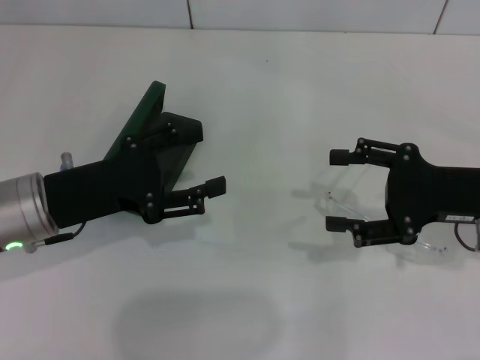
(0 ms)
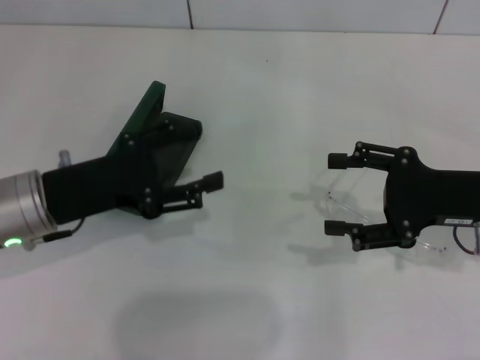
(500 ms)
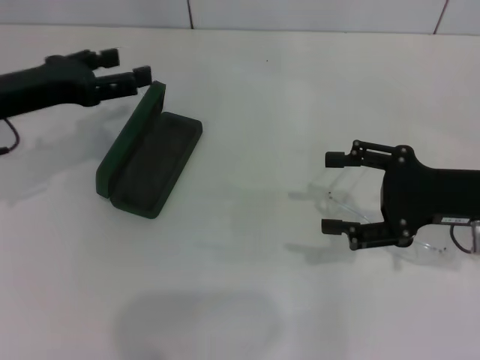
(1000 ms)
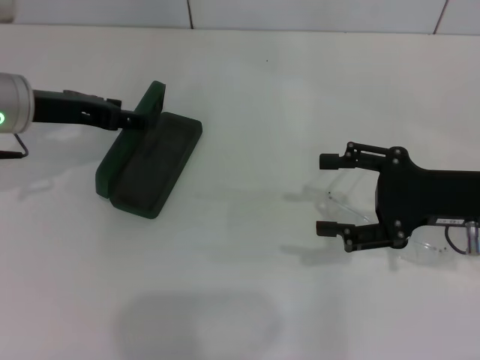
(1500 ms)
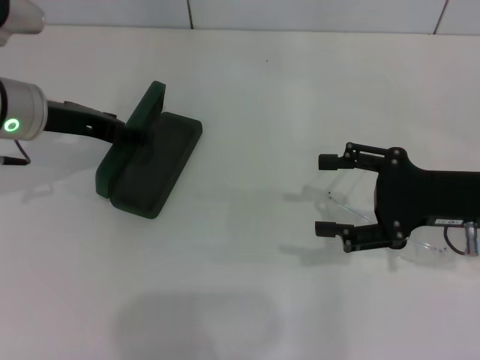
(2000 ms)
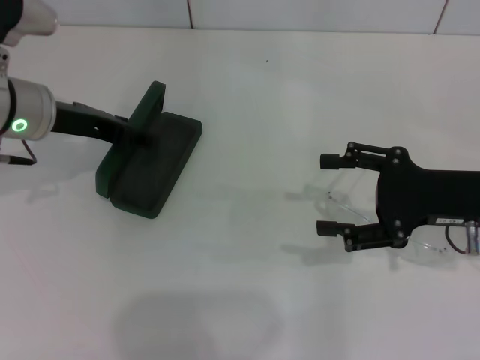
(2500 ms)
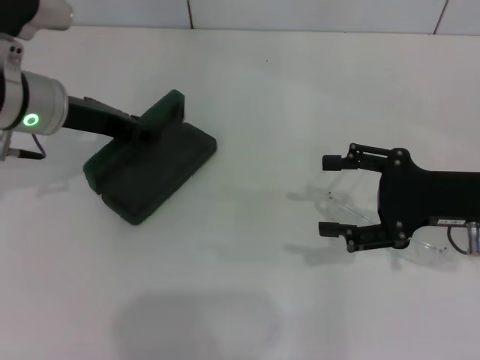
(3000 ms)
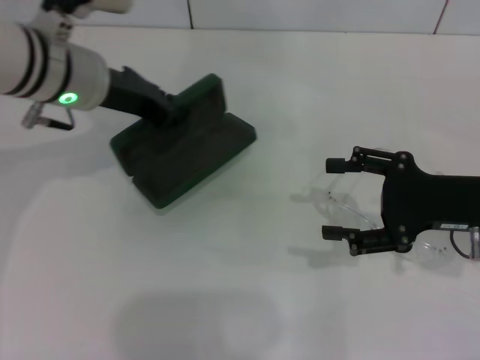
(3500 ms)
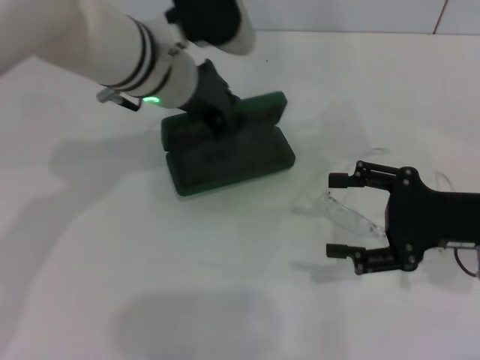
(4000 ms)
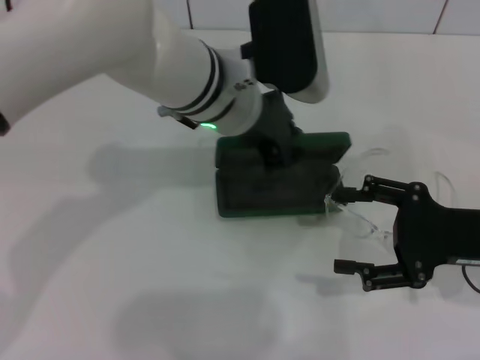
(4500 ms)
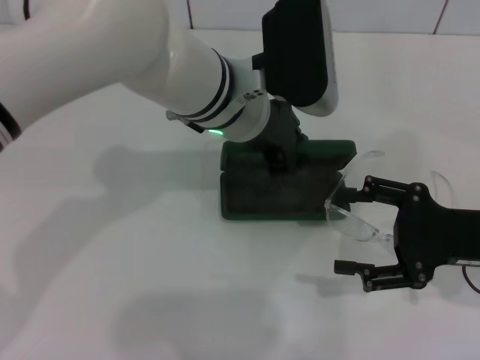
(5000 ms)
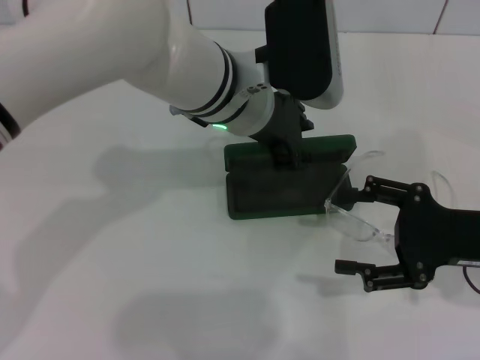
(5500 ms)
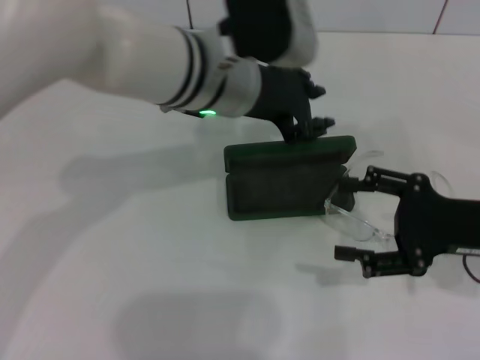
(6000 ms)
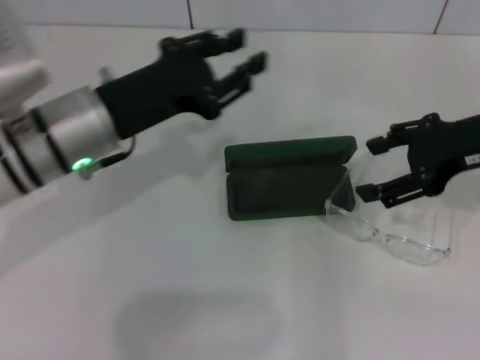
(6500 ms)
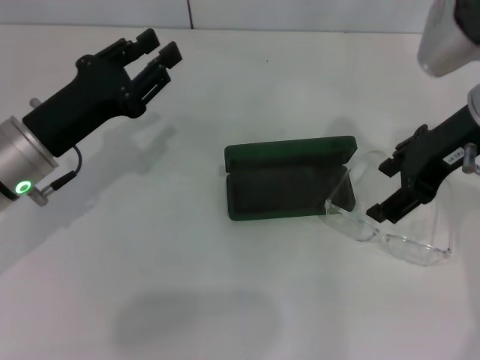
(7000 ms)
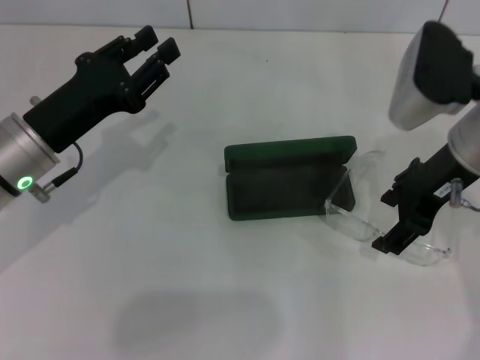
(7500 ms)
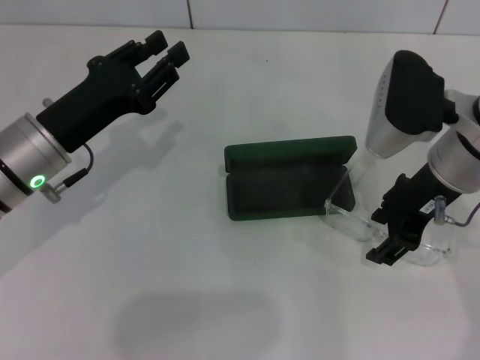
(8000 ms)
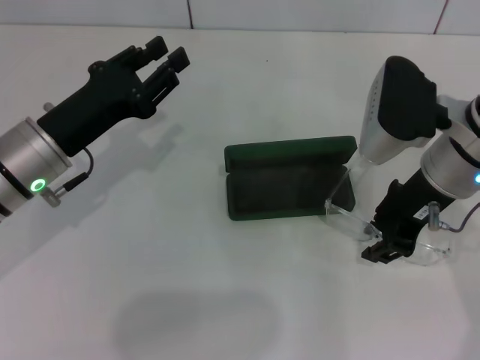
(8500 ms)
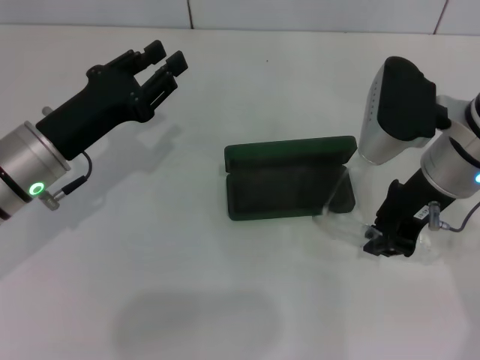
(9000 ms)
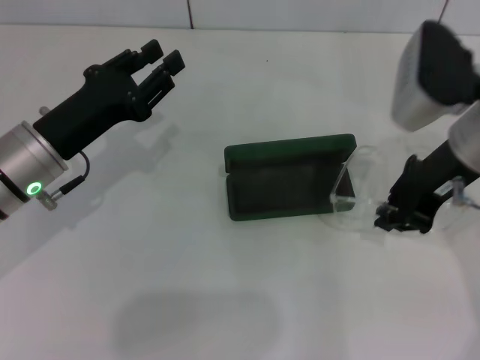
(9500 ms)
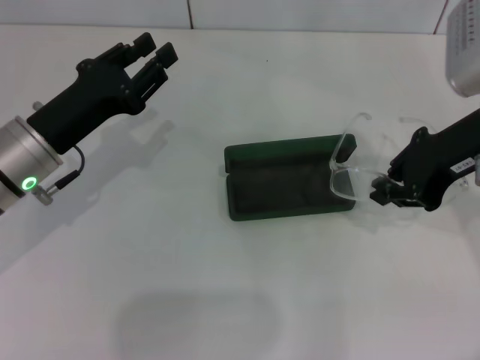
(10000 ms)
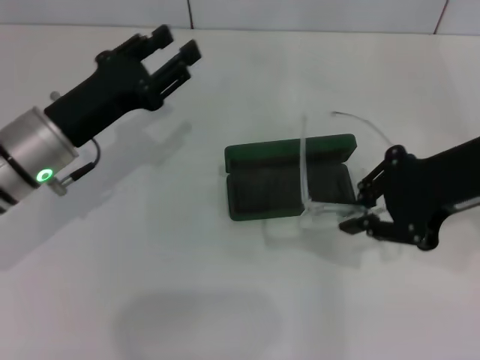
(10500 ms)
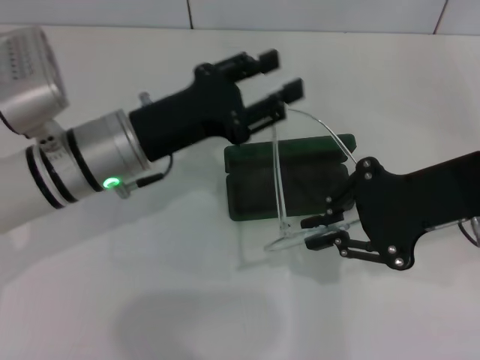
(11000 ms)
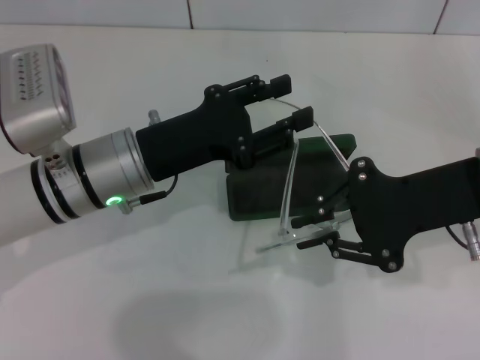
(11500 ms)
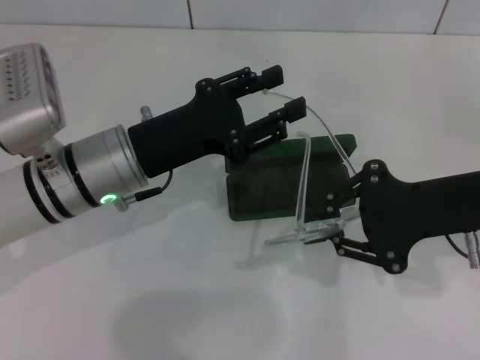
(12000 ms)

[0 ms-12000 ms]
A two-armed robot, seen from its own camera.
Step, 0 ms to 3000 ms: Grab the glasses case with your left hand.
Step, 3500 ms to 5500 ms: Place the glasses case in the center of the table with your left hand.
Step, 6000 ms to 9000 ms: Grab the eyeglass frame with your right hand.
0 ms to 2000 ms: The left gripper heads forward, covering approximately 10 cm.
2000 ms to 4000 ms: The left gripper heads to the right, covering about 15 cm, and closes its fingers.
4000 ms to 6000 ms: The left gripper moves about 5 cm.
6000 ms to 8000 ms: The right gripper goes about 15 cm to the left, forward and upward. Meanwhile the left gripper moves to the left and downward, some 20 cm.
8000 ms to 10000 ms: The right gripper shifts by approximately 5 cm, and closes up.
10000 ms to 12000 ms: The right gripper travels backward by some 5 cm; the left gripper heads to the right, covering about 5 cm.

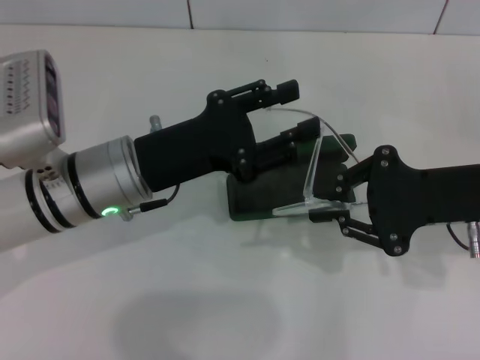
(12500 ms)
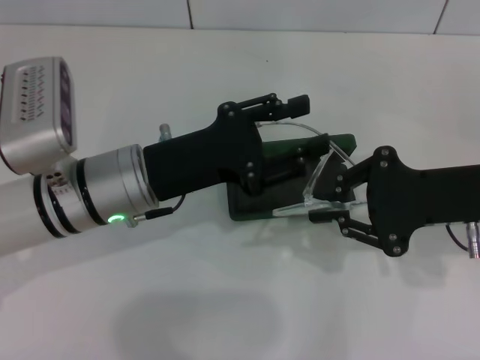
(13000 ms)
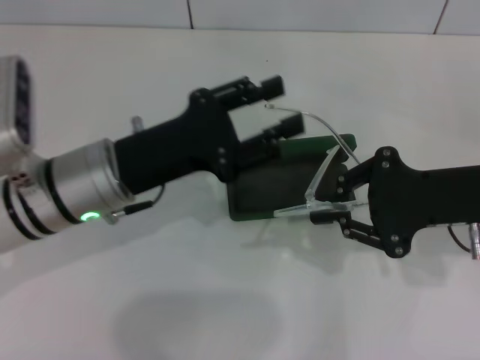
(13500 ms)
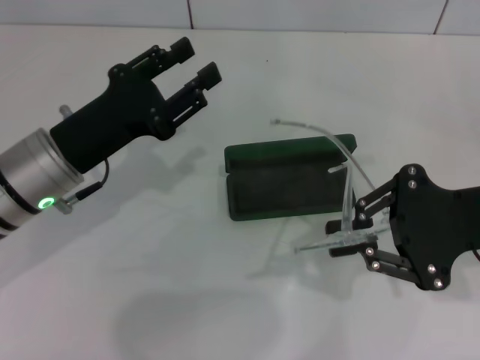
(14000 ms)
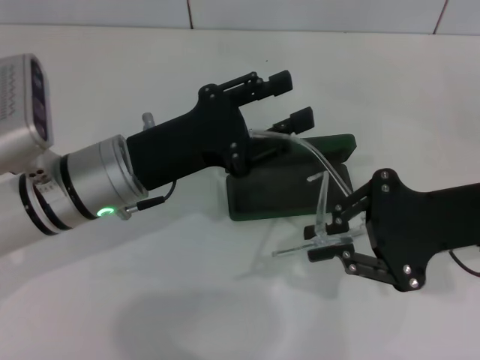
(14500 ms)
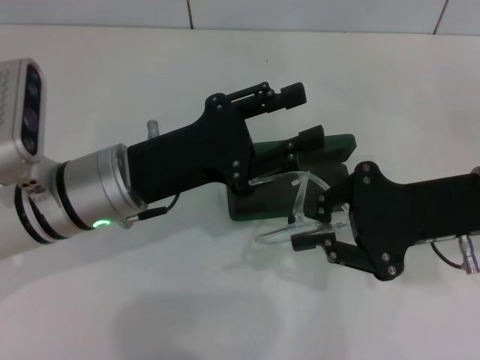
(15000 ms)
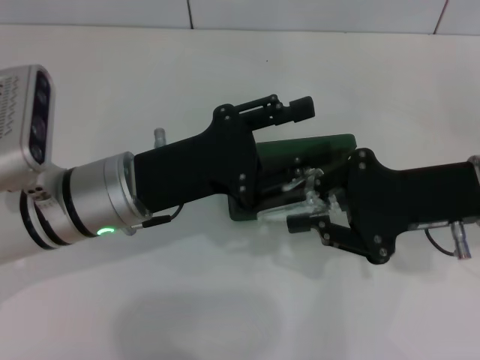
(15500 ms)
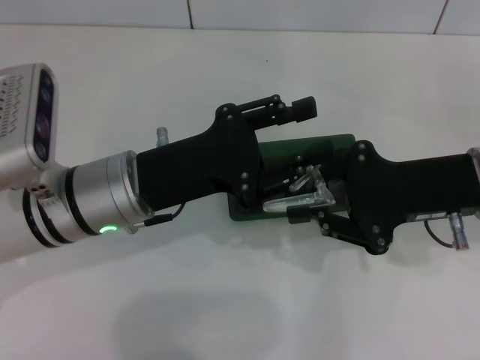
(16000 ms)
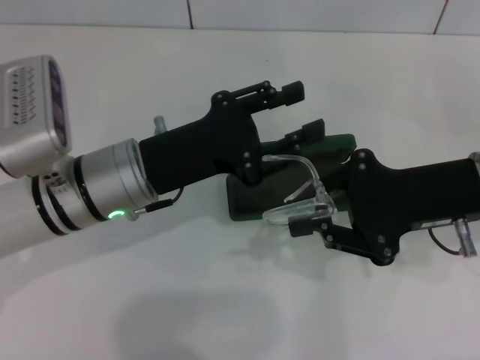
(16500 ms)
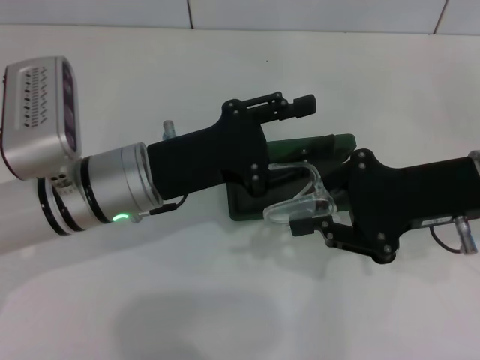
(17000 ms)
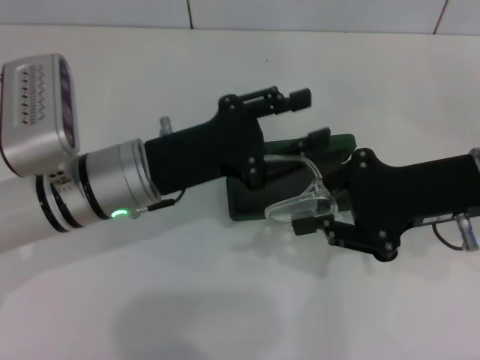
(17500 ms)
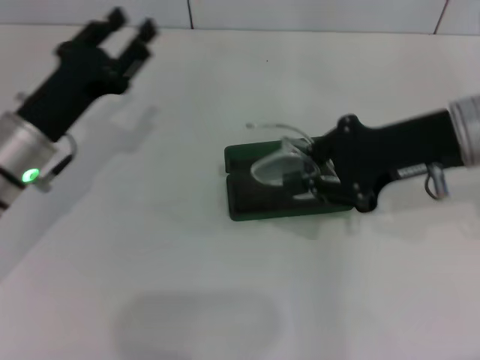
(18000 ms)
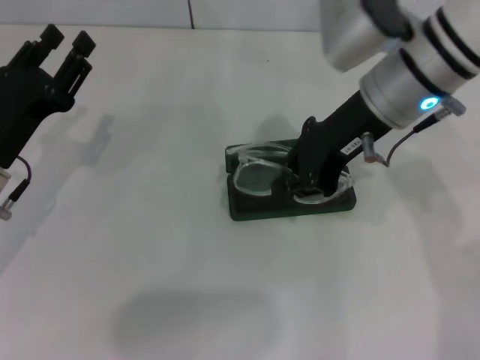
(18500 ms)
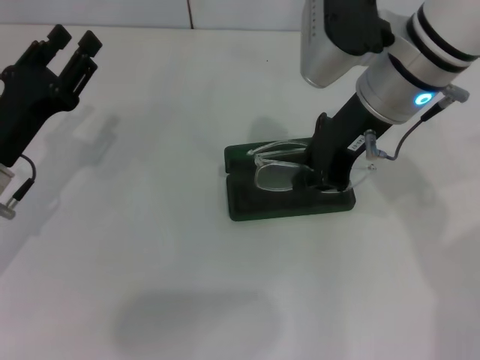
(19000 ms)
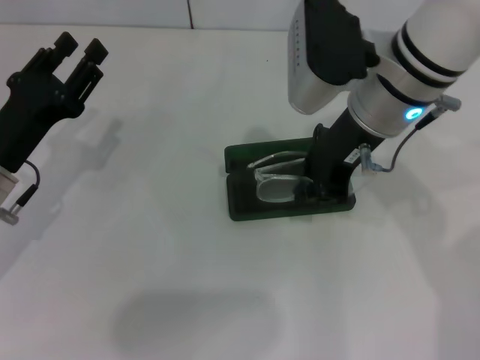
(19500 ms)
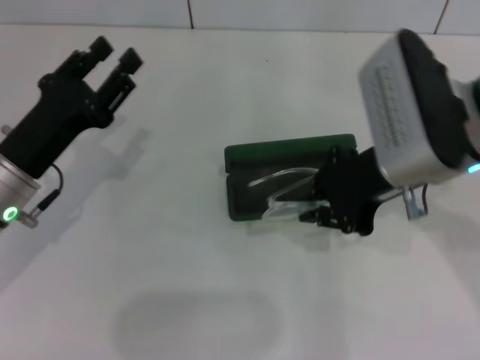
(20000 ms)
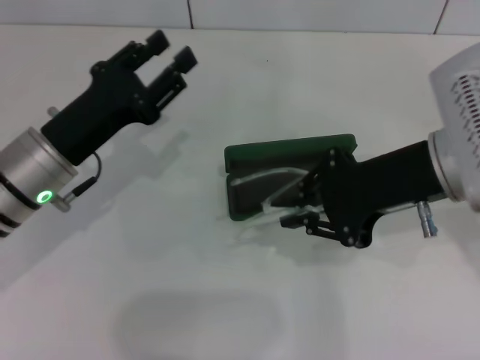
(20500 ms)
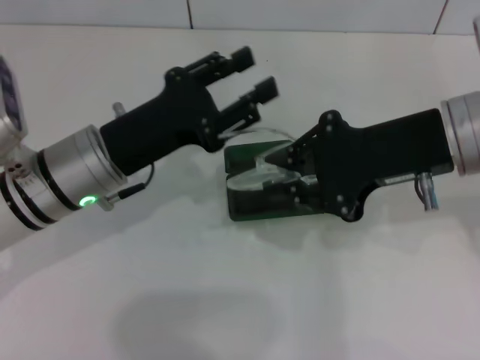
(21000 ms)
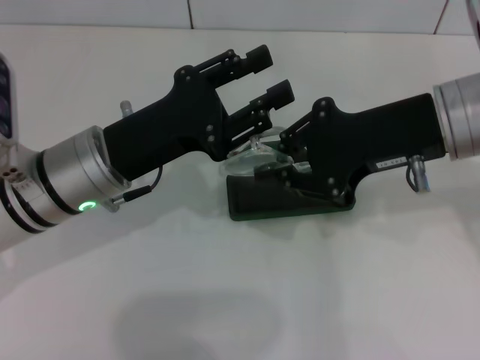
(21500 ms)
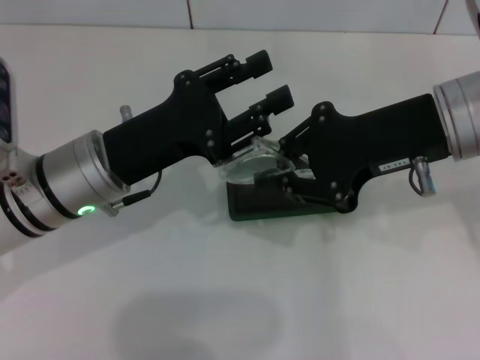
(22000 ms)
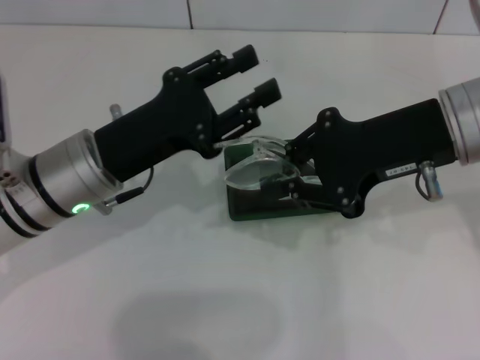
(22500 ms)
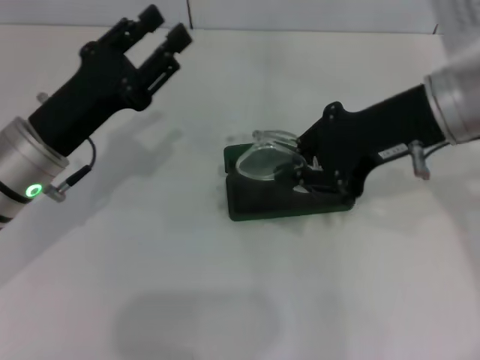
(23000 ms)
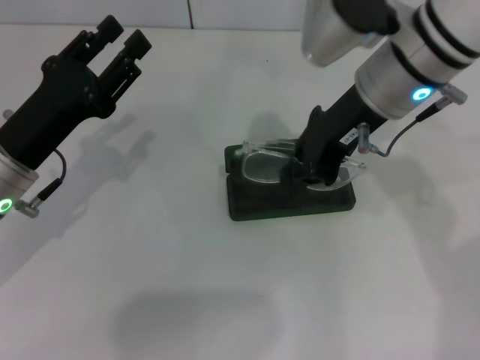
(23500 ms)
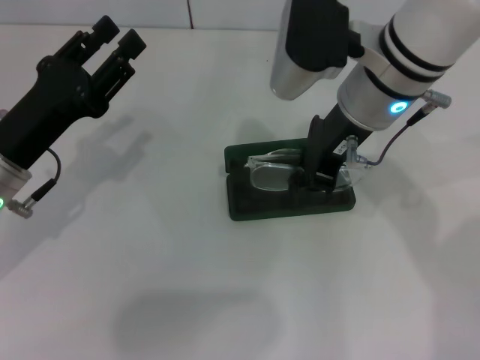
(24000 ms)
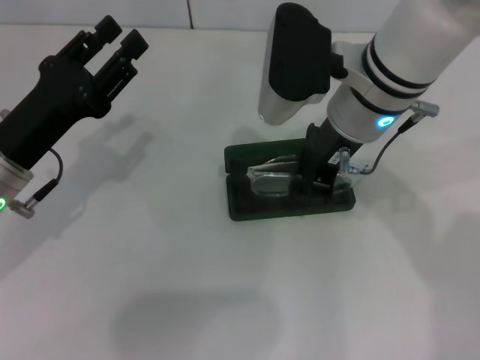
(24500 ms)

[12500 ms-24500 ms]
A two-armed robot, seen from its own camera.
Step, 12500 ms to 22000 ms: Fold the frame with your left hand.
12500 ms to 16500 ms: The grippers make only small movements.
16500 ms to 18500 ms: The left gripper is displaced to the left by roughly 10 cm; the right gripper goes about 15 cm to the left, forward and upward.
18500 ms to 20500 ms: The right gripper heads backward and to the right, covering approximately 10 cm; the left gripper is displaced to the right by about 5 cm.
22500 ms to 24500 ms: The left gripper moves to the left, some 5 cm. Meanwhile the right gripper heads to the left and forward, covering about 10 cm.

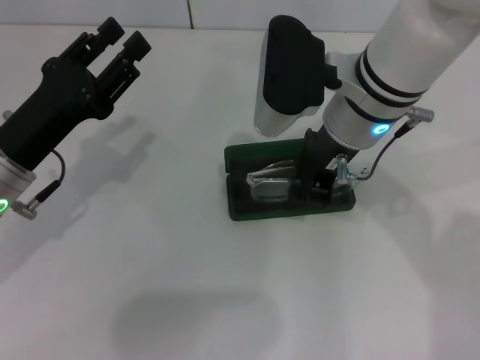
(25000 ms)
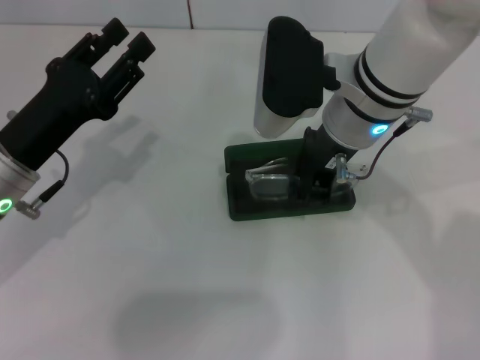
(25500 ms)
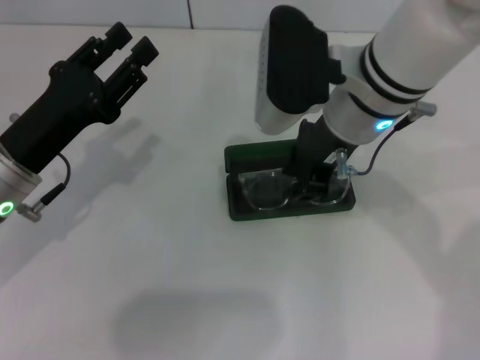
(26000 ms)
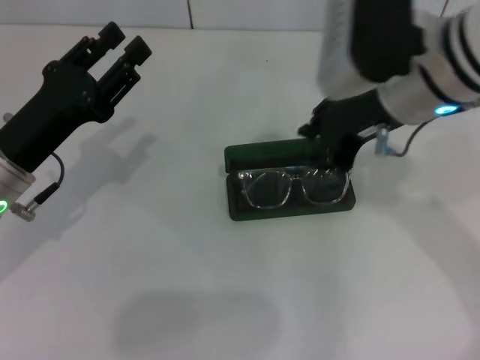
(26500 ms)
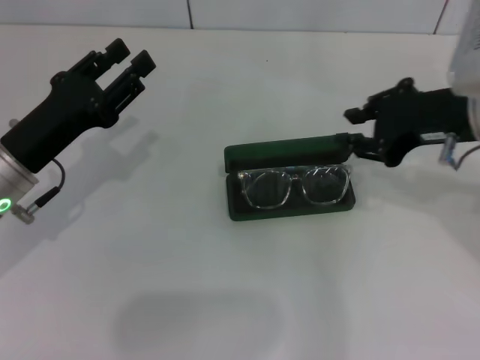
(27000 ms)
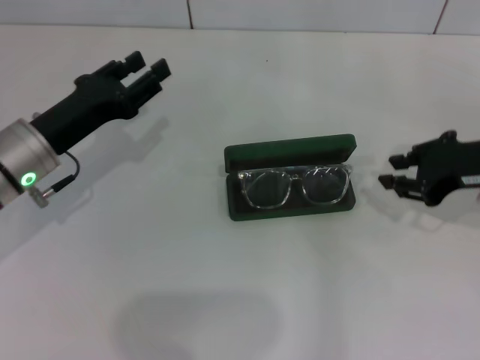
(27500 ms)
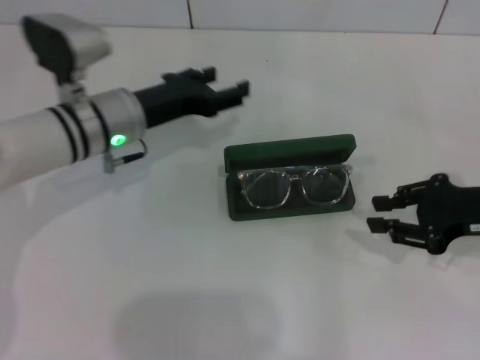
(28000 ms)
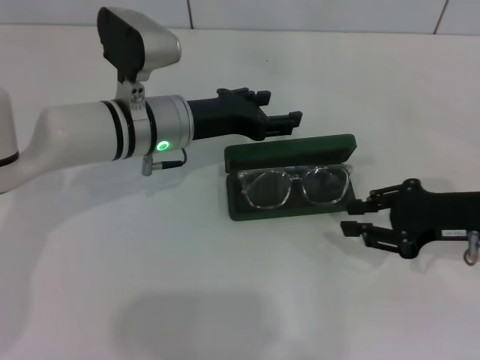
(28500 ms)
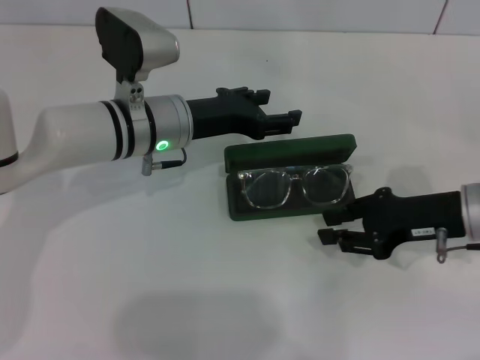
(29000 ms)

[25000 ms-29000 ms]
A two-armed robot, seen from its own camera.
25000 ms to 27000 ms: The right gripper travels to the right by roughly 15 cm.
27000 ms to 29000 ms: The right gripper is displaced downward by about 15 cm, while the left gripper moves to the right and forward, roughly 15 cm.
